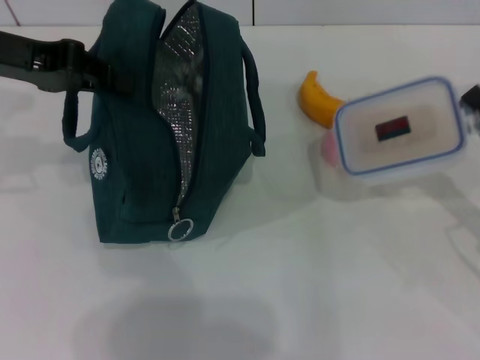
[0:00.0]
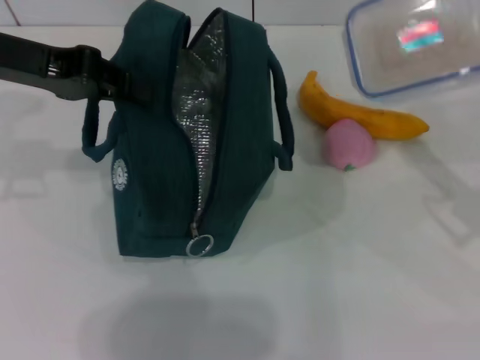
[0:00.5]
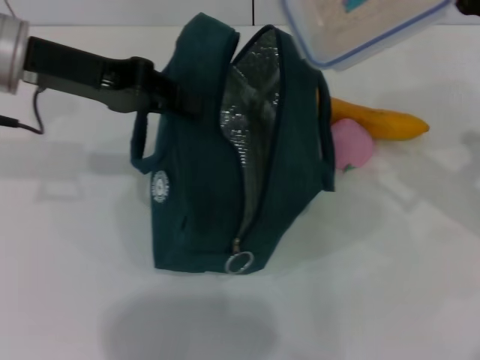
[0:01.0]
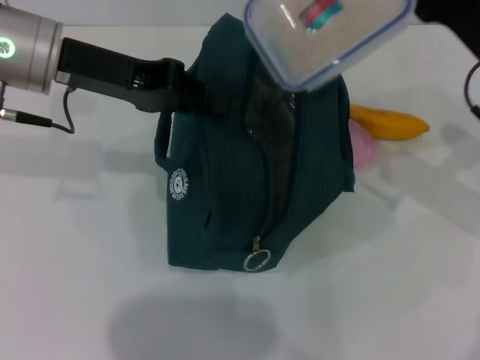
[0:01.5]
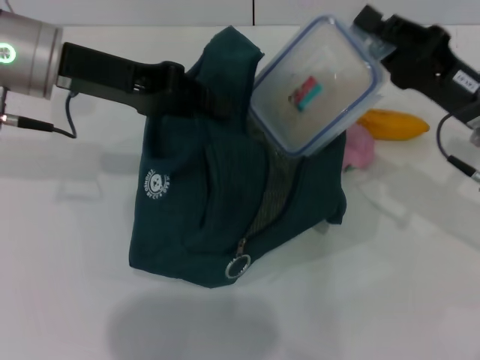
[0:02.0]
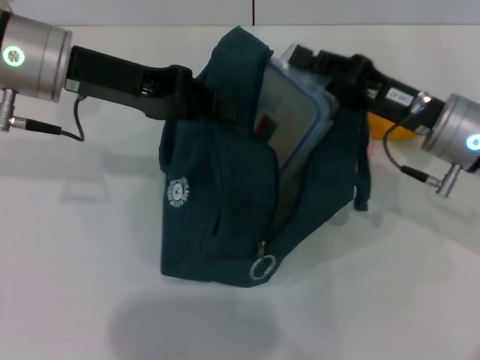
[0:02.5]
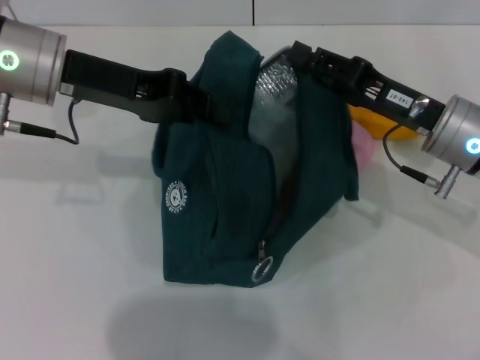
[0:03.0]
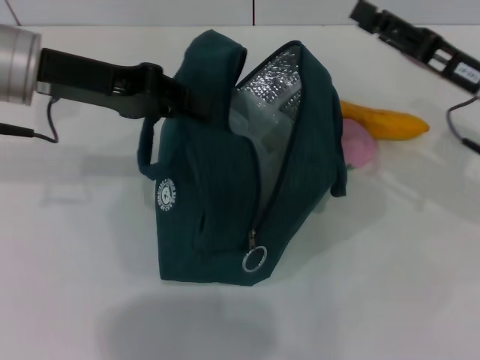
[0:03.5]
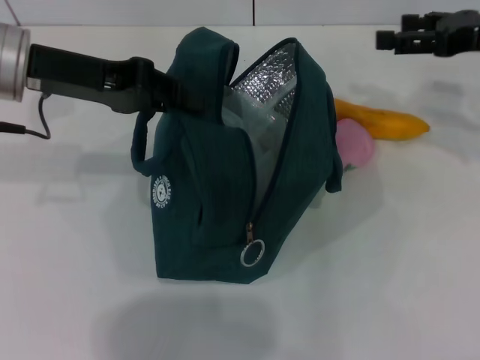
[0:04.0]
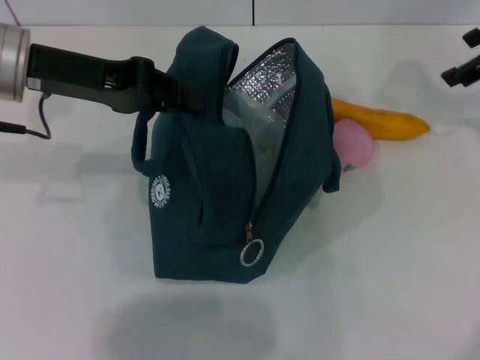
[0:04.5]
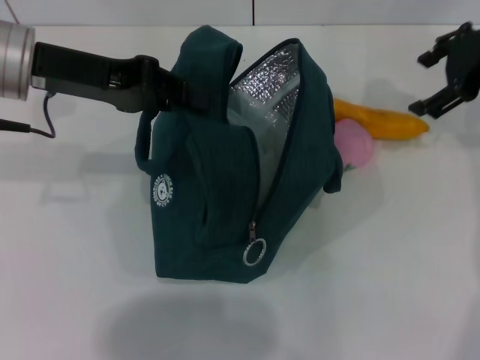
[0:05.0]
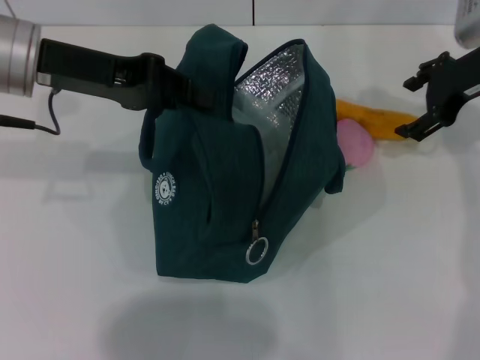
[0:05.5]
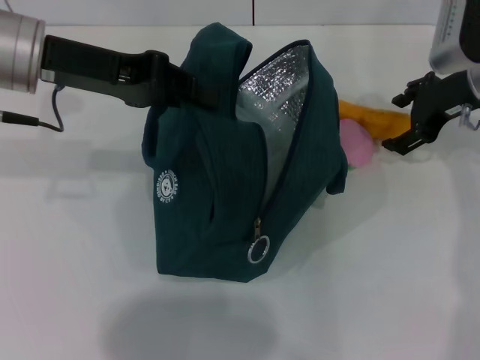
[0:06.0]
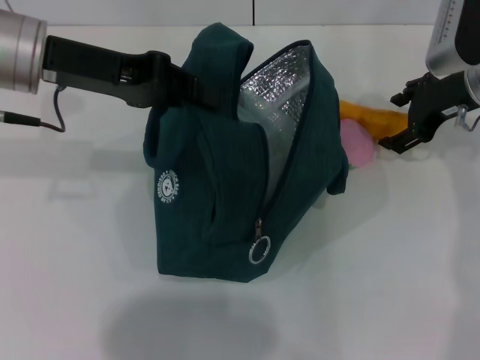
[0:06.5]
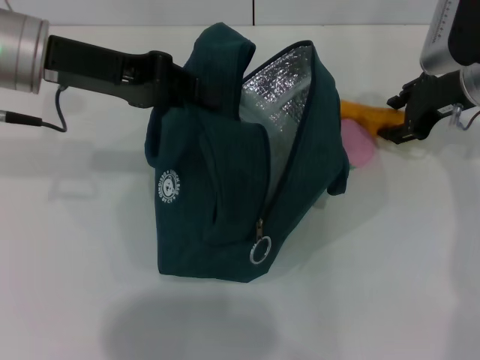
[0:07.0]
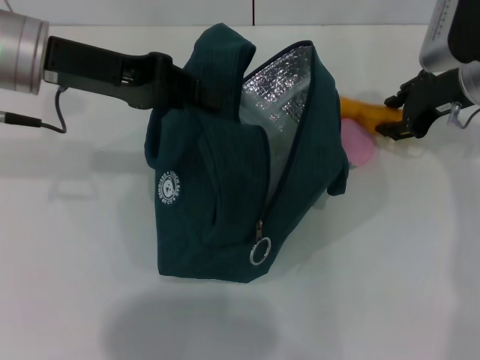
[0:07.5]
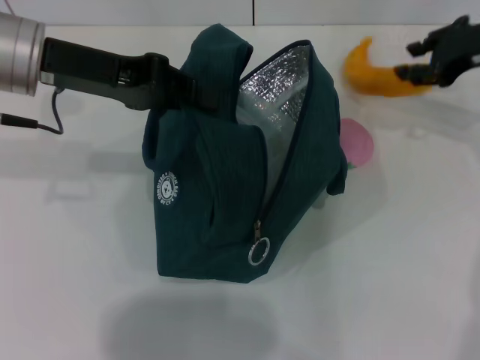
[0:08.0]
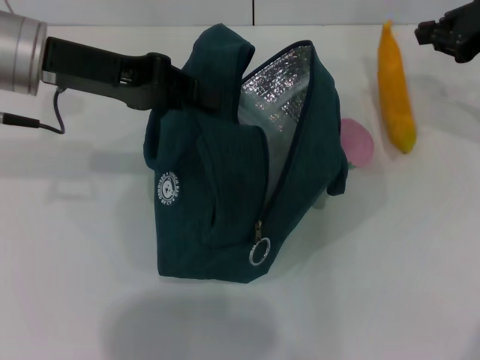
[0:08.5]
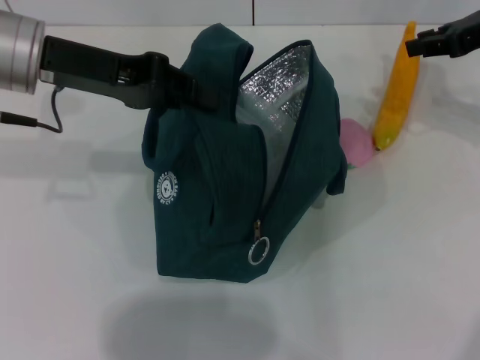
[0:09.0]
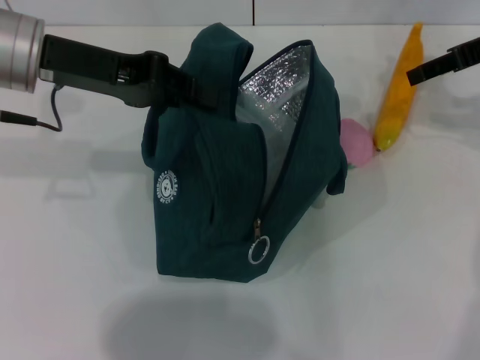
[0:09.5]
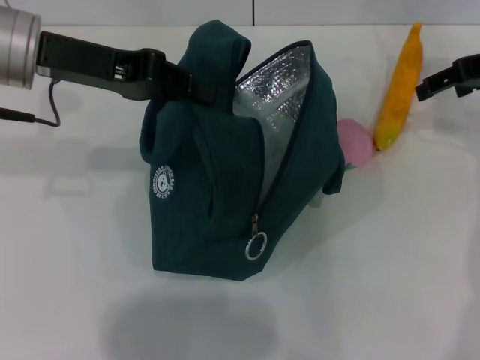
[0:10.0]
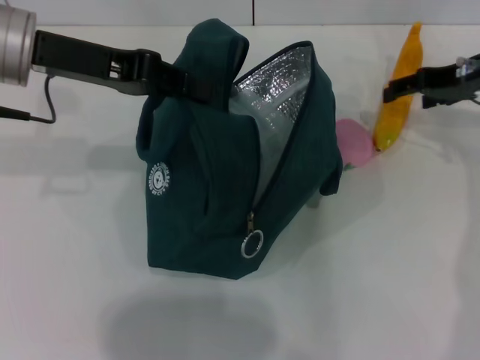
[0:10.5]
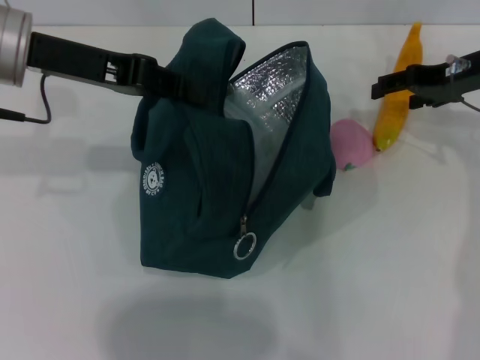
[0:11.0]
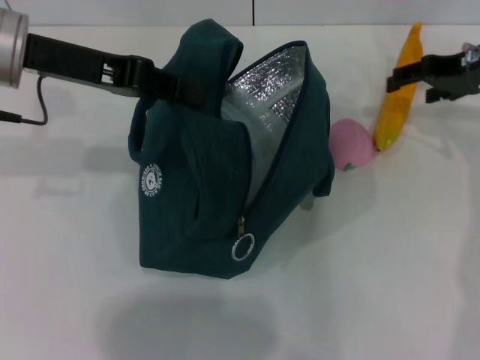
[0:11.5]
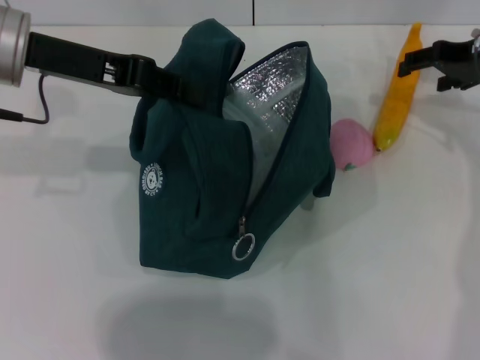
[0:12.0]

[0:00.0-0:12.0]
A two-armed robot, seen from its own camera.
Step, 0:00.0 to 0:03.0: Place the lunch box into the lunch bag with your right hand.
0:00.0 to 0:02.0: The right gripper shifts roughly 10 cm to the left, forward and upward. The left gripper shifts some 5 cm to the right.
0:02.0 to 0:04.0: The right gripper shifts about 10 cm upward, forward and to the right, and opens up.
0:04.0 to 0:06.0: The right gripper shifts roughly 5 cm to the left.
0:06.0 to 0:08.0: The right gripper changes place by approximately 5 cm, and closes.
0:08.0 to 0:10.0: The right gripper opens its fingers.

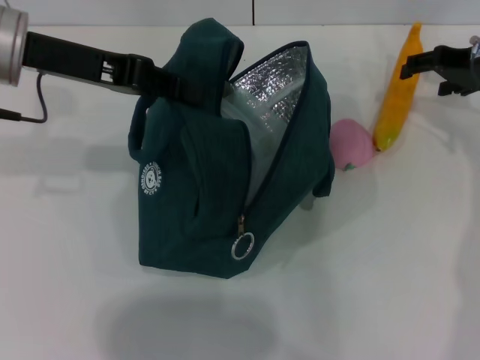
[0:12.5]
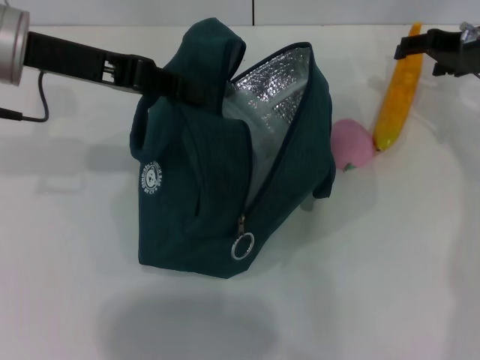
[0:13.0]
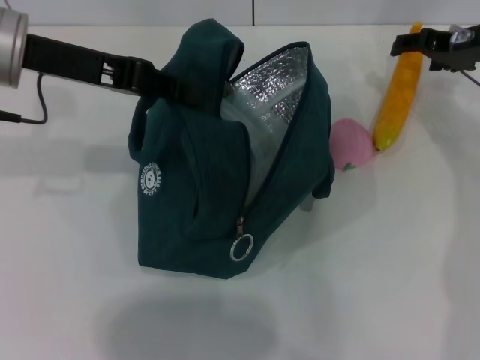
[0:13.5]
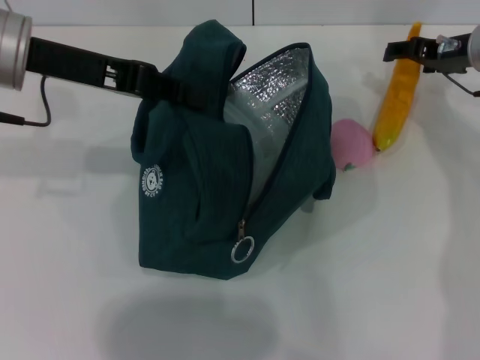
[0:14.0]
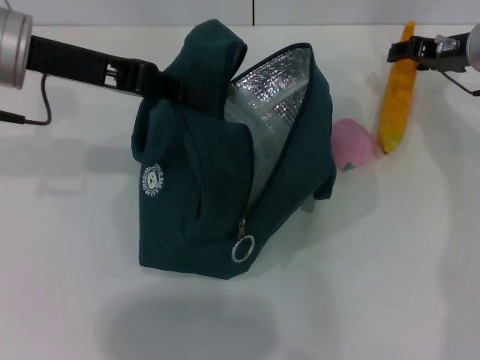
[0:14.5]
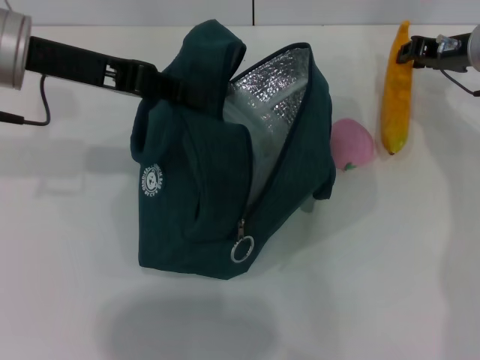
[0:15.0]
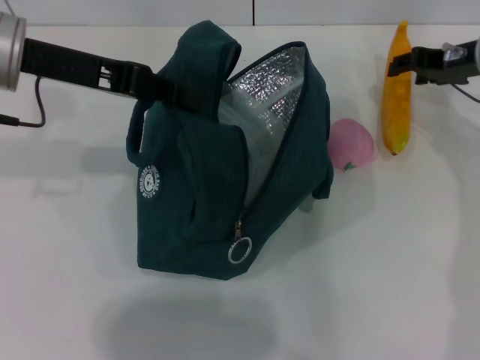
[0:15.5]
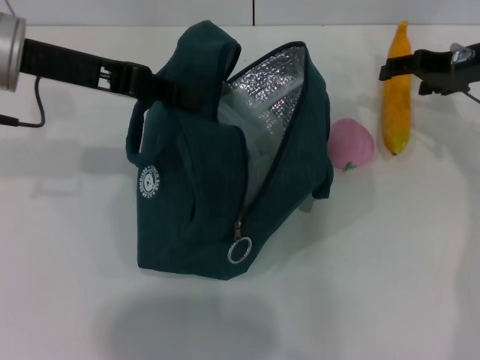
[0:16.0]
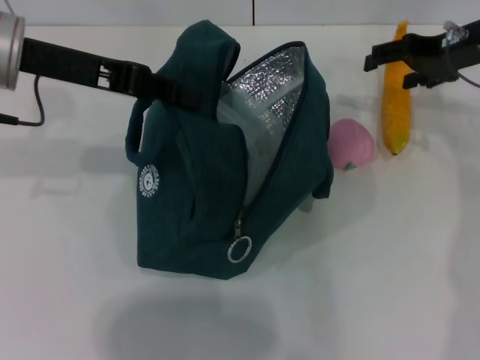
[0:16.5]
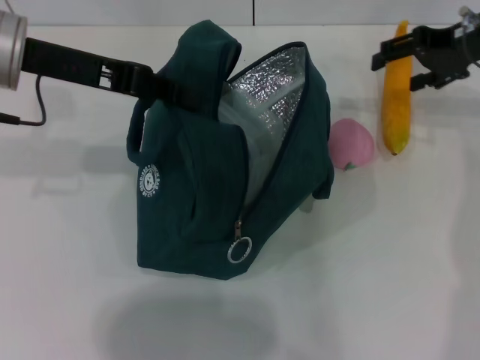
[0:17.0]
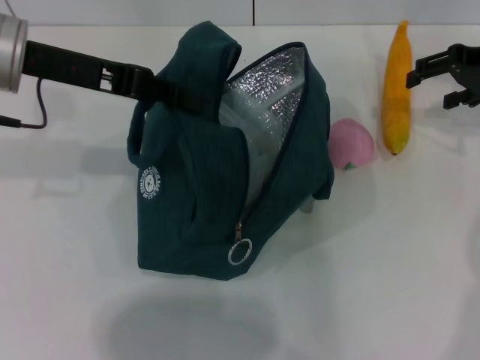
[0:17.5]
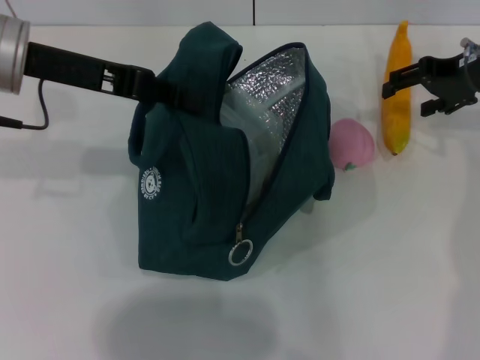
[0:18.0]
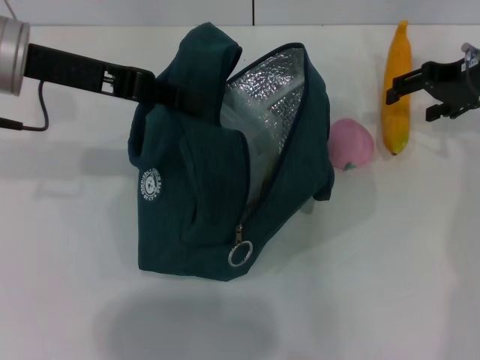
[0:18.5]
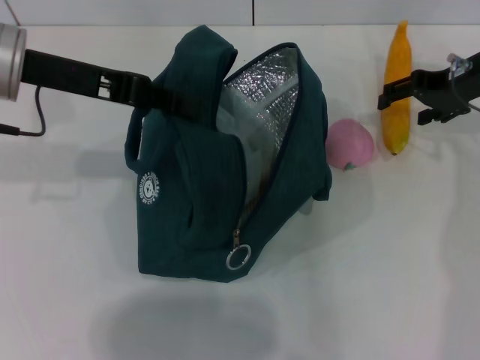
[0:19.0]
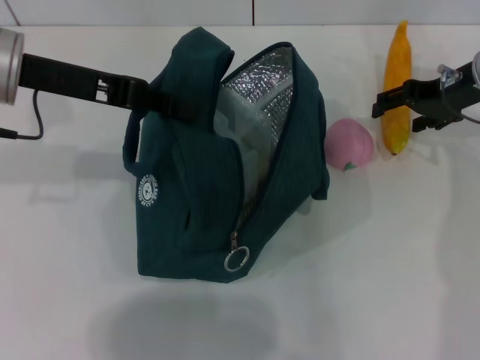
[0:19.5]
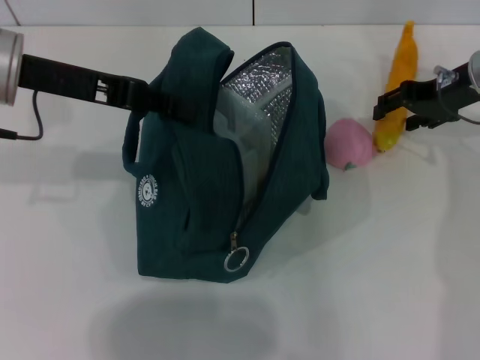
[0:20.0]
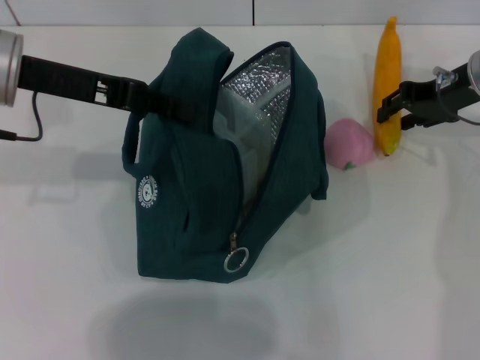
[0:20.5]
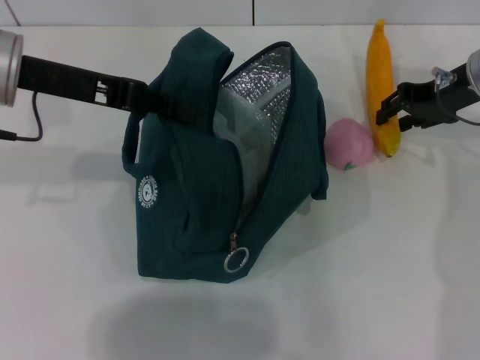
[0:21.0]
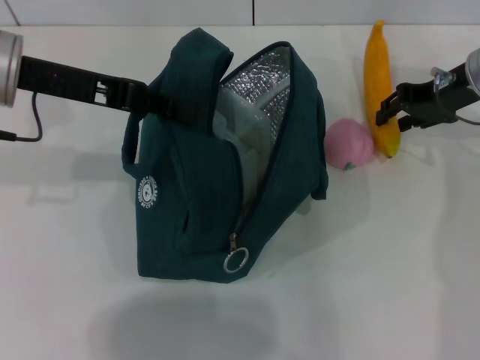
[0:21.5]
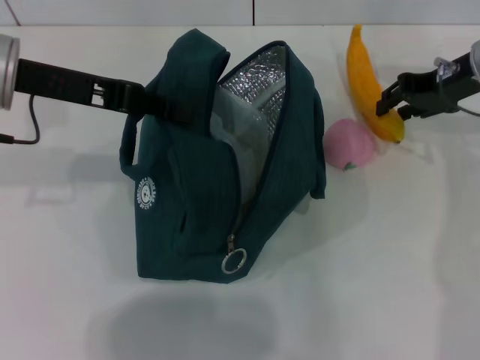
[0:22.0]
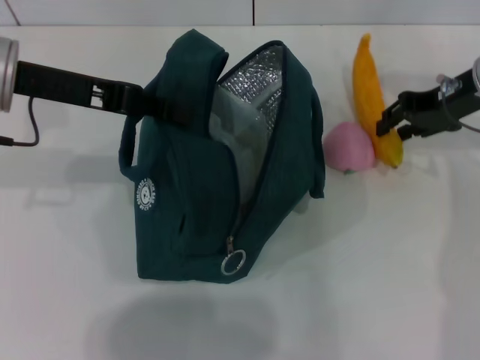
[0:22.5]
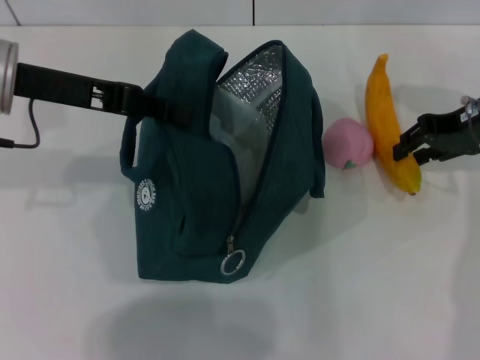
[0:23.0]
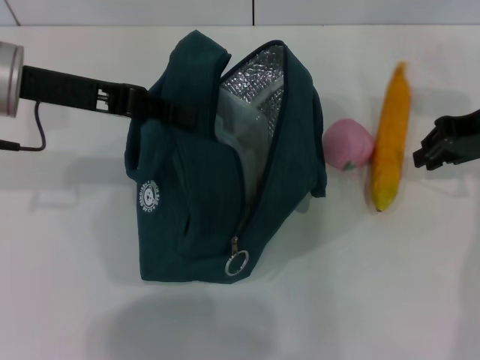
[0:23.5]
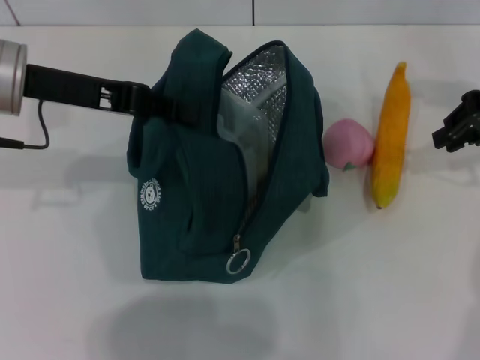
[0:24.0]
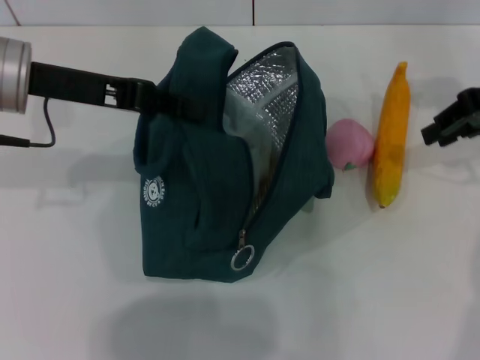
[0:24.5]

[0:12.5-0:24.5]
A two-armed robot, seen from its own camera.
0:12.5 to 0:14.5: The grippers stay close to where they were, moving slightly.
0:14.5 to 0:16.5: The right gripper closes, then reopens.
0:16.5 to 0:18.5: The grippers move only a little.
0:18.5 to 0:20.5: The right gripper closes its fingers.
0:20.5 to 0:22.5: The grippers make only small movements.
0:22.5 to 0:24.5: The right gripper travels upward by roughly 5 cm.

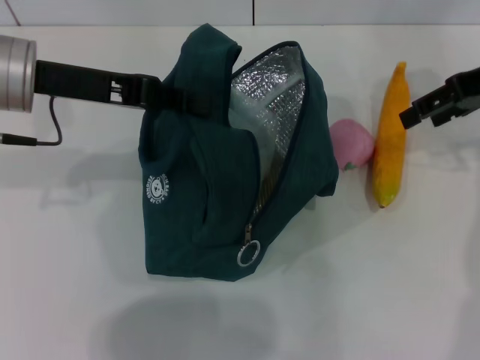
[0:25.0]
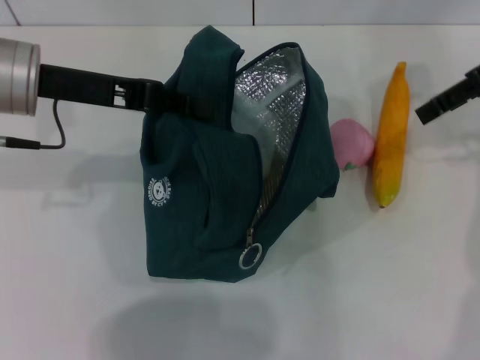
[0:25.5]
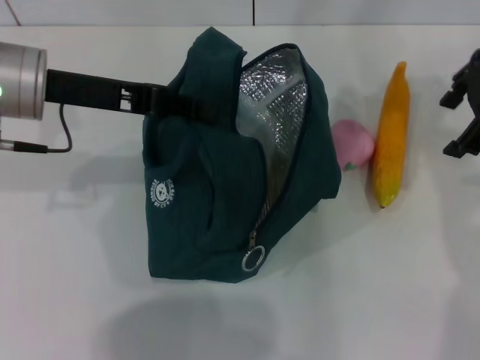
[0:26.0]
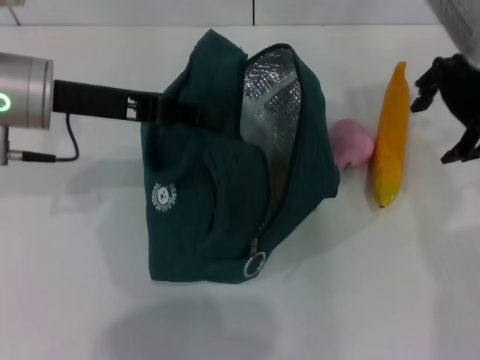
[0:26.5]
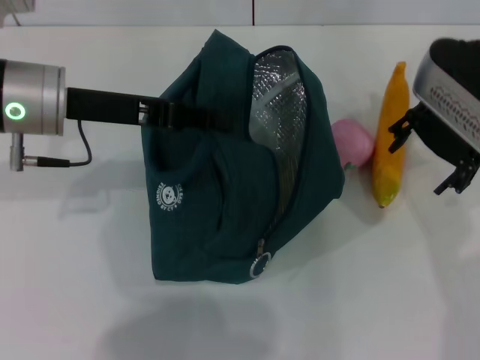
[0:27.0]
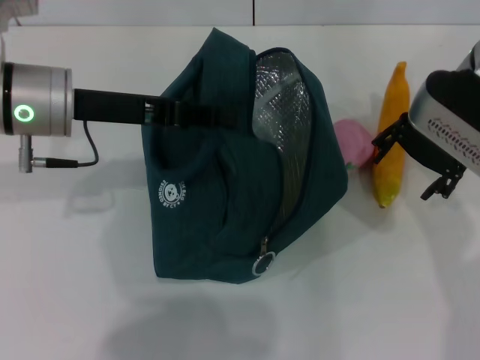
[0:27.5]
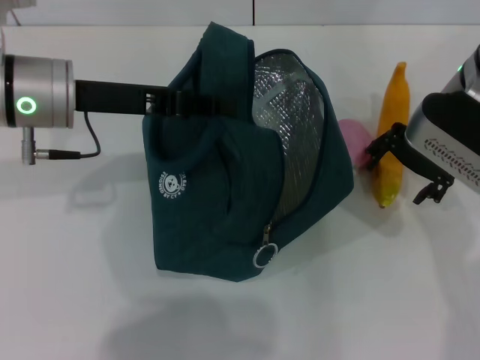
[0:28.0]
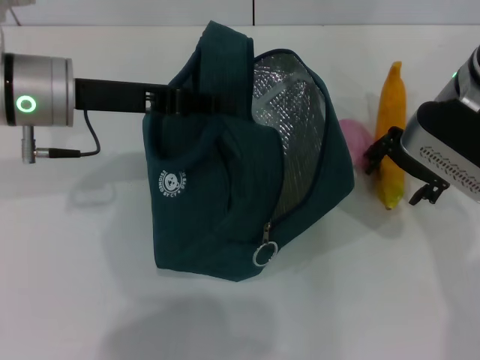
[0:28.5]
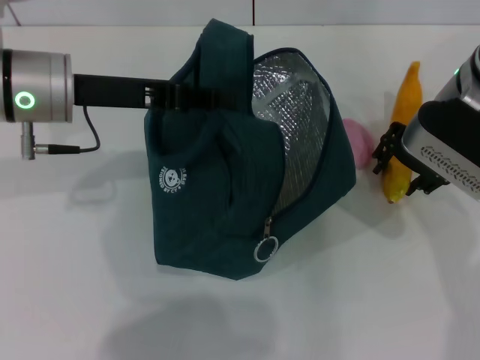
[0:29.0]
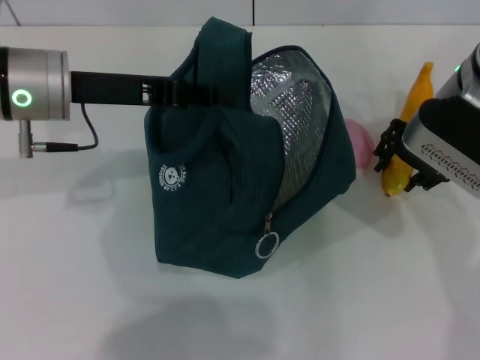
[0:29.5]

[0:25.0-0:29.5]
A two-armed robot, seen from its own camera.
Step, 0:25.0 to 0:29.0: Take the banana with your right hand.
0:25.0 to 0:27.0: The right gripper goes roughly 10 cm to the left, and opens up.
0:27.0 to 0:29.5: The right gripper closes its fingers.
